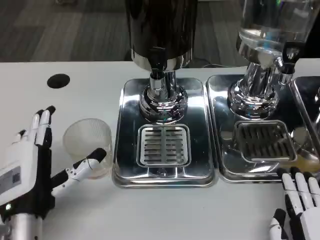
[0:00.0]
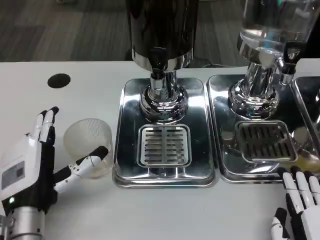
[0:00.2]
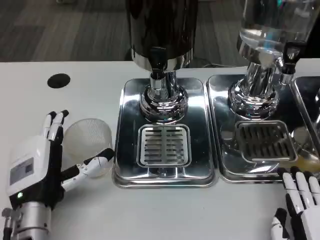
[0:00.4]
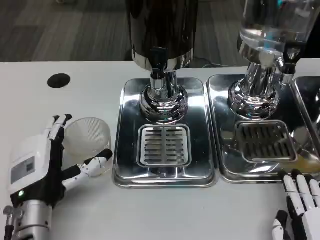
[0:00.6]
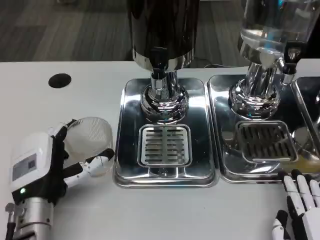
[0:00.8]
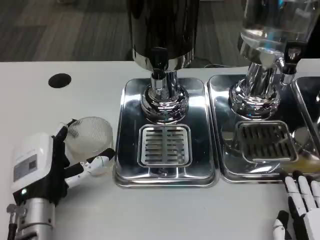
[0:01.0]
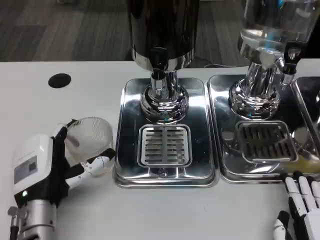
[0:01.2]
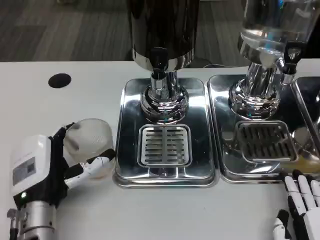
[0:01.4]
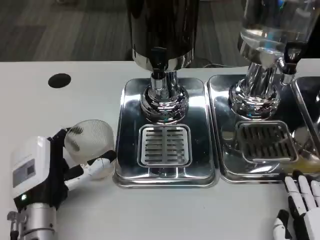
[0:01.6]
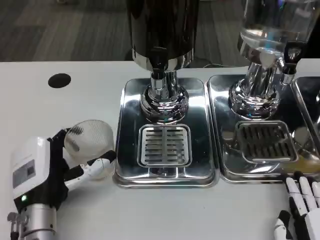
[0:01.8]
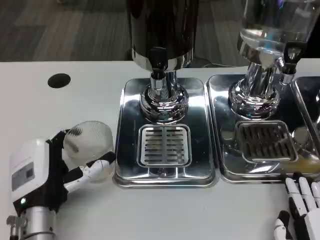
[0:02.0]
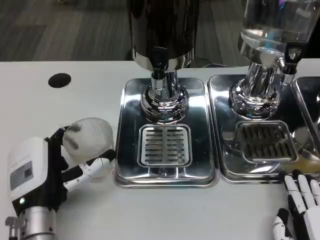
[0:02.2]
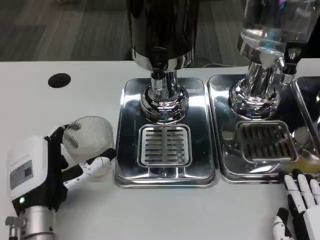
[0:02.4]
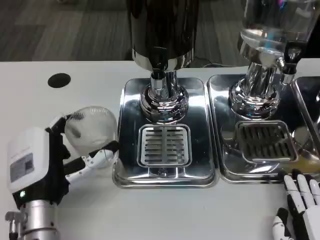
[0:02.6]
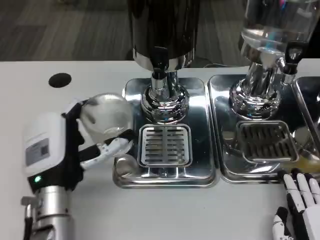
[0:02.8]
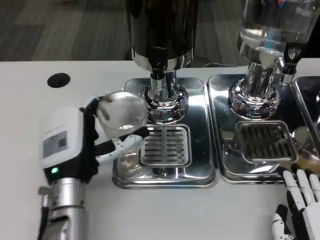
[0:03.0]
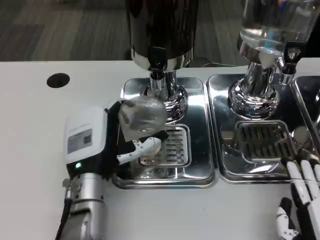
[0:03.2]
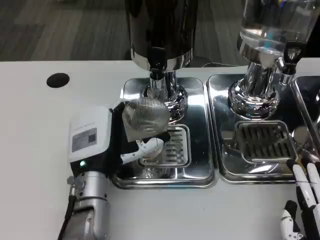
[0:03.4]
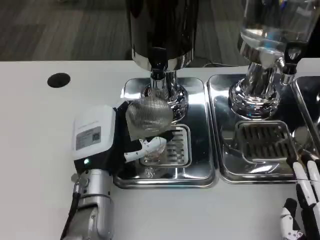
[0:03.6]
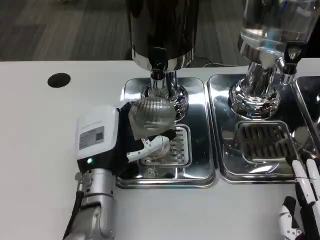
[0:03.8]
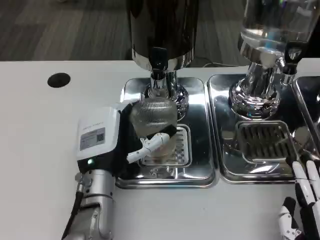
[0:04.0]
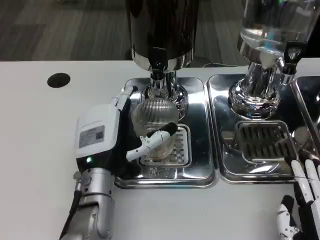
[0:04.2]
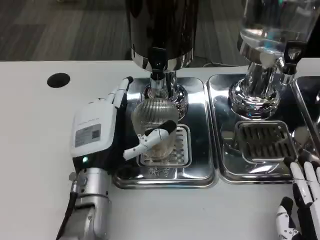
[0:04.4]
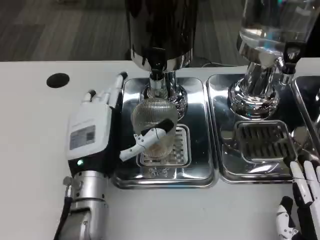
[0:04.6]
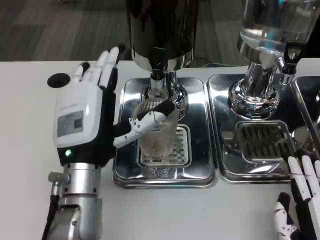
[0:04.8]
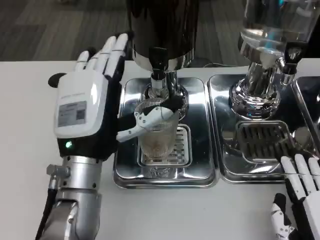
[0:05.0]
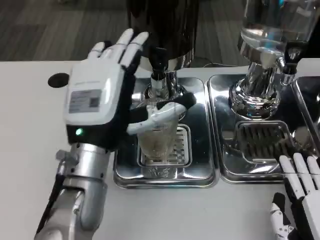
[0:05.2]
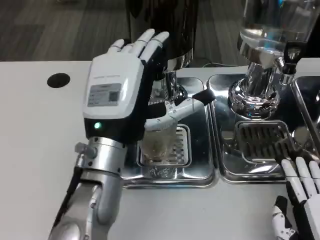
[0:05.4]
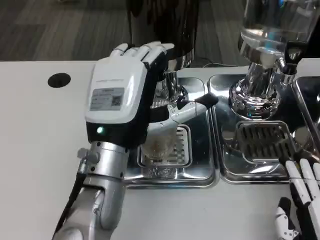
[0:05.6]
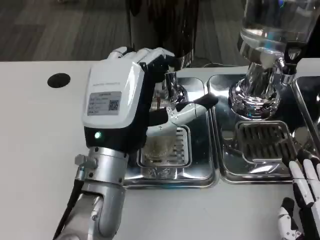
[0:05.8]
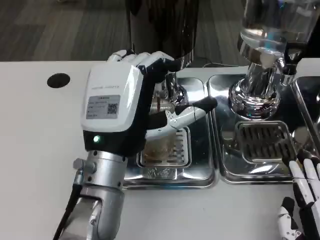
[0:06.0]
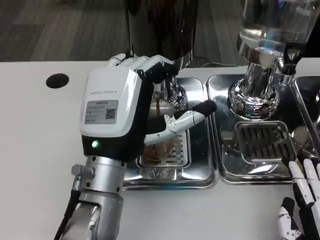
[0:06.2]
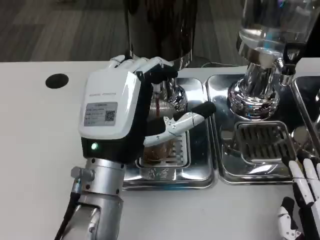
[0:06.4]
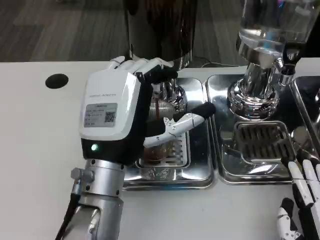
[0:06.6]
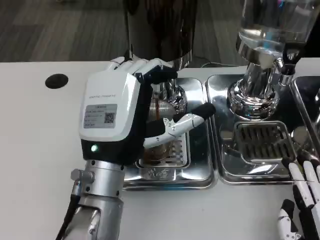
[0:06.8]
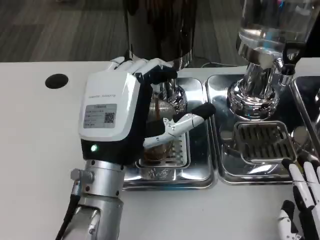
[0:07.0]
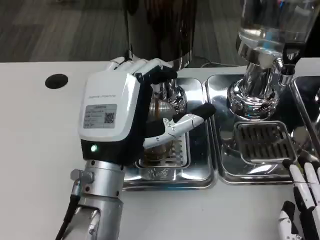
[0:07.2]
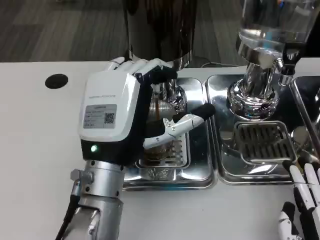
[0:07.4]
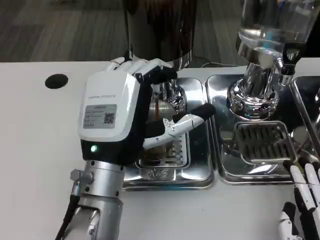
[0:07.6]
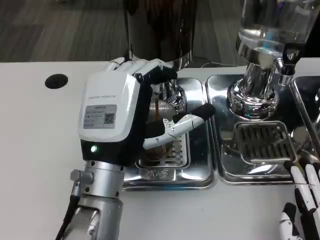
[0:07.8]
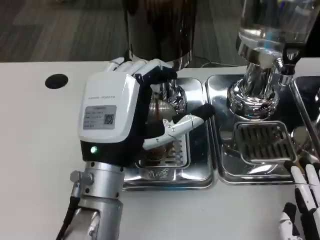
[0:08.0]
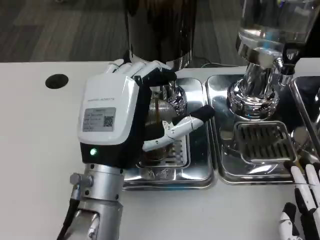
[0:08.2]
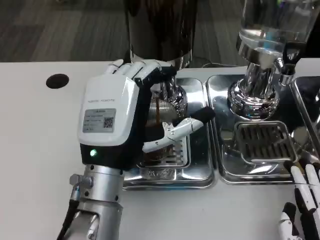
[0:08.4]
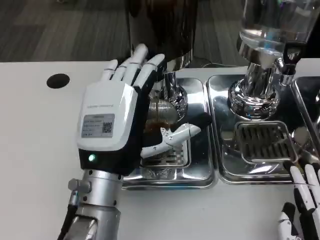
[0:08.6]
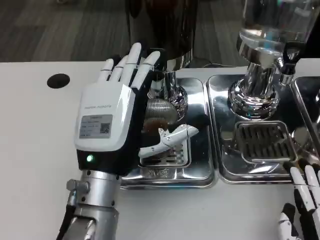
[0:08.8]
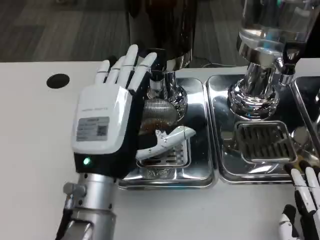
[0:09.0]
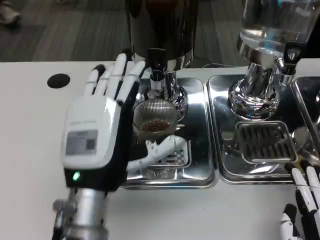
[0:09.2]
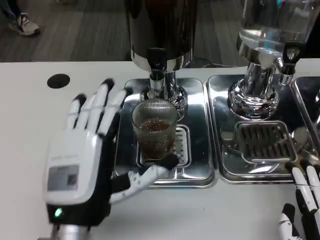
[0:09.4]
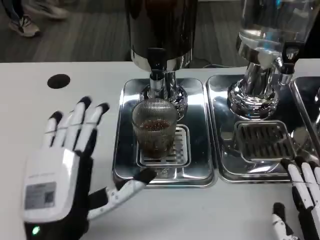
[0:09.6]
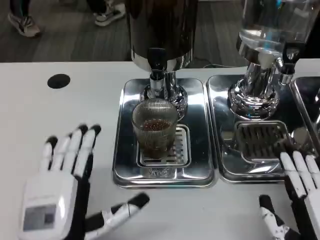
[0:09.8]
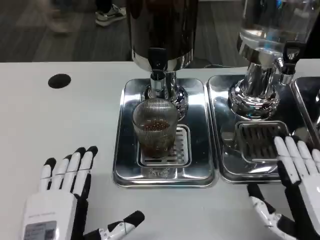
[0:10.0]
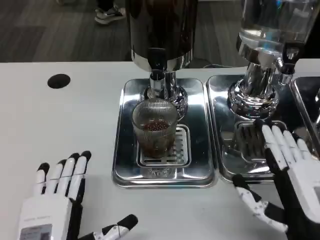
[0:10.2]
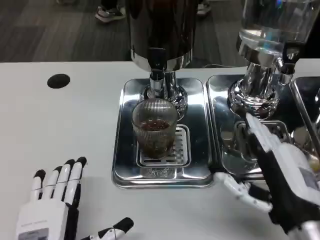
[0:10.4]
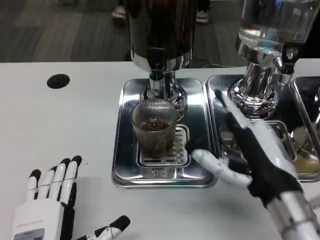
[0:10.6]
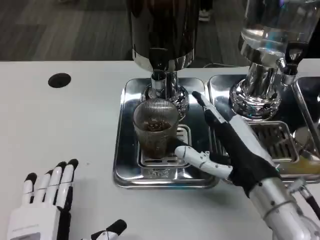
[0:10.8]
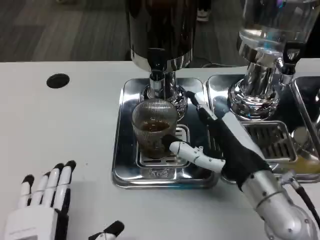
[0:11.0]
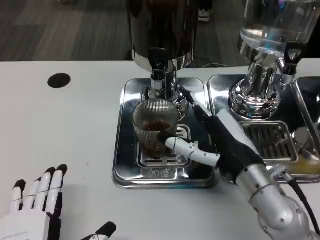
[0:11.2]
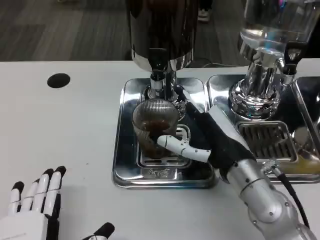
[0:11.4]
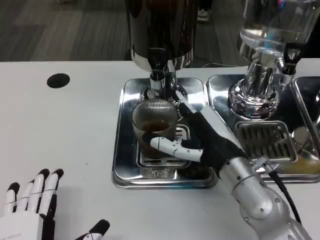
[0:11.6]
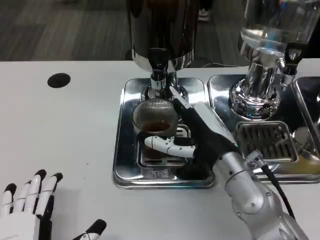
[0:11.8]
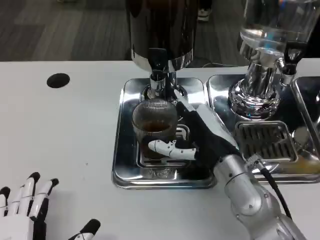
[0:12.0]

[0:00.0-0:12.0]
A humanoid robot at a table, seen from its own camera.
Task of the whole recording: Grasp the cup under the faucet to collect the drink, then remove the cup.
0:00.0 to 0:01.6: There are only small adjustments of the hands.
0:01.6 to 0:03.0: The left hand shifts by roughly 5 cm.
0:04.4 to 0:06.0: The left hand travels upward by approximately 5 cm.
0:06.0 to 0:07.6: Both hands stay about where they are.
0:07.6 to 0:09.0: The hands stay close to where they were, moving slightly.
0:09.0 to 0:10.4: The right hand goes some 10 cm forward and upward, while the left hand goes approximately 15 cm backward, downward and to the left.
0:10.4 to 0:12.0: The right hand is displaced forward and to the left by some 15 cm.

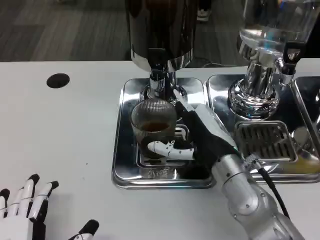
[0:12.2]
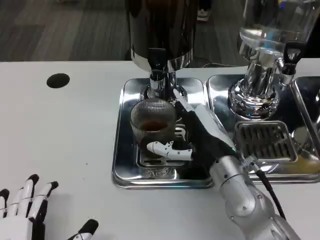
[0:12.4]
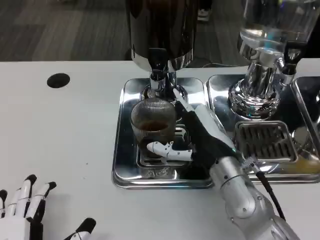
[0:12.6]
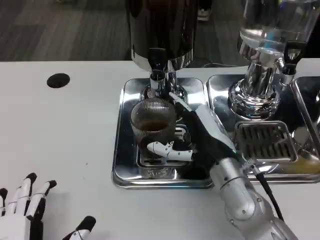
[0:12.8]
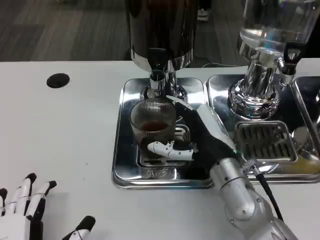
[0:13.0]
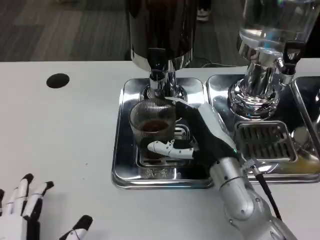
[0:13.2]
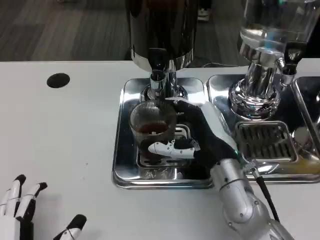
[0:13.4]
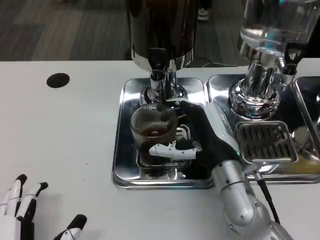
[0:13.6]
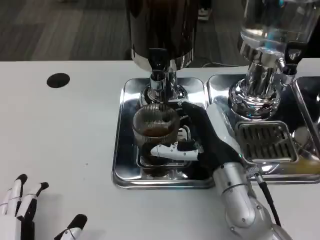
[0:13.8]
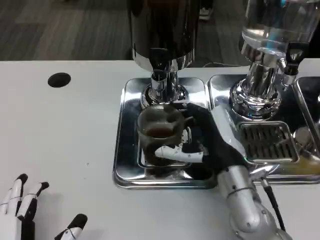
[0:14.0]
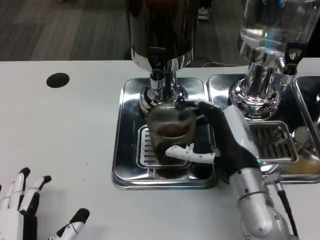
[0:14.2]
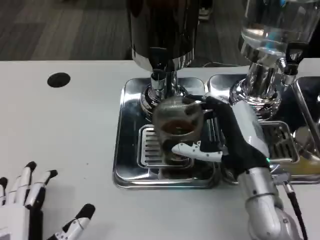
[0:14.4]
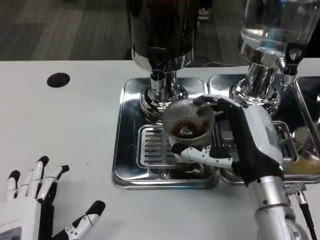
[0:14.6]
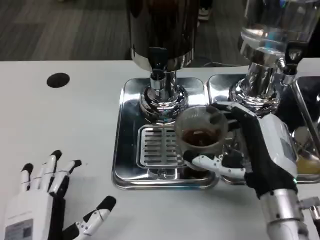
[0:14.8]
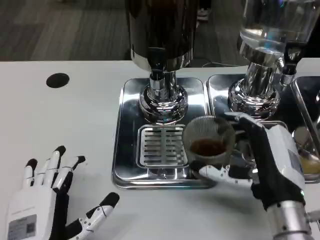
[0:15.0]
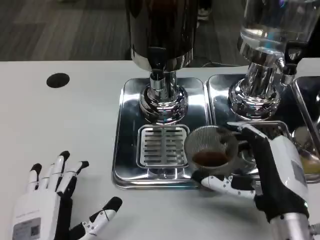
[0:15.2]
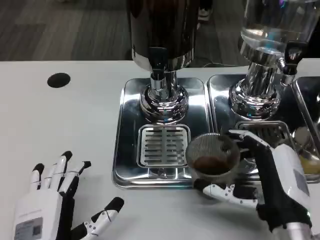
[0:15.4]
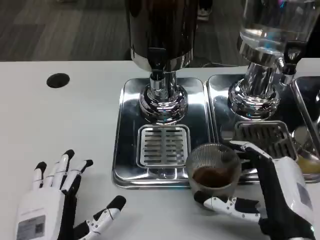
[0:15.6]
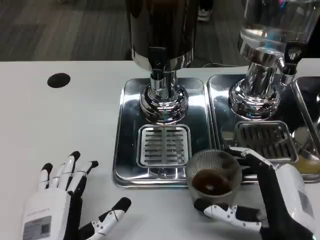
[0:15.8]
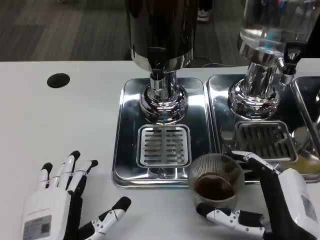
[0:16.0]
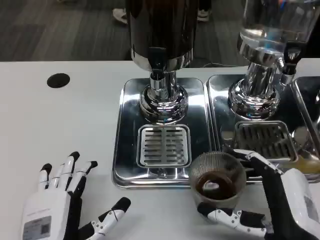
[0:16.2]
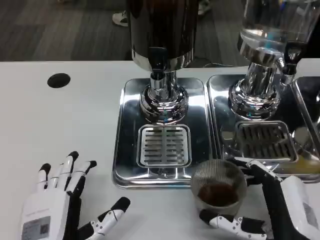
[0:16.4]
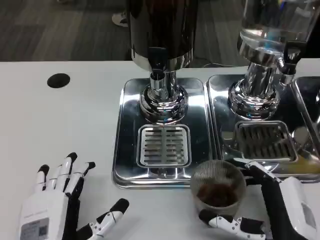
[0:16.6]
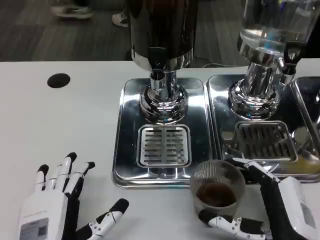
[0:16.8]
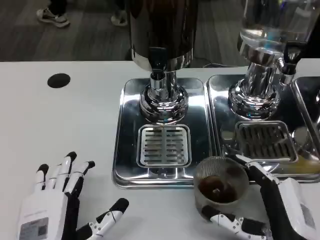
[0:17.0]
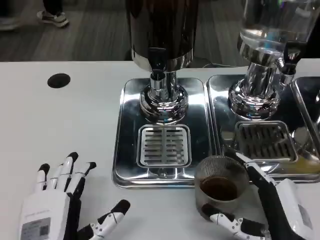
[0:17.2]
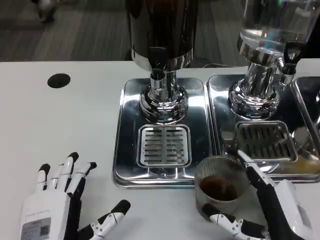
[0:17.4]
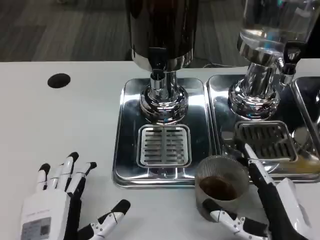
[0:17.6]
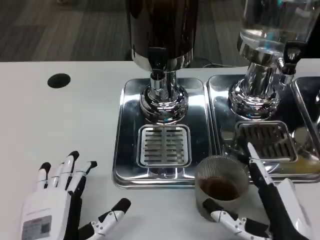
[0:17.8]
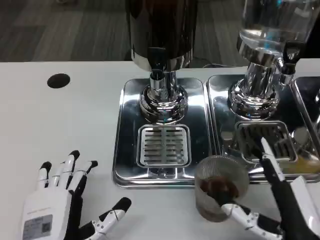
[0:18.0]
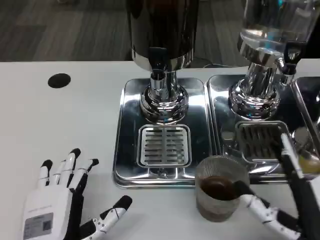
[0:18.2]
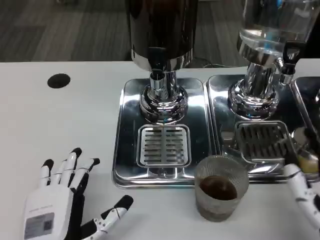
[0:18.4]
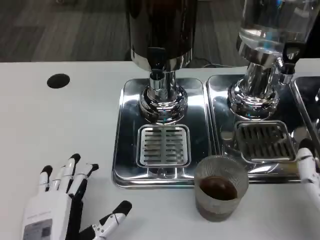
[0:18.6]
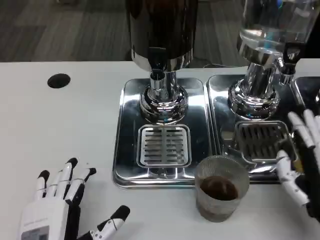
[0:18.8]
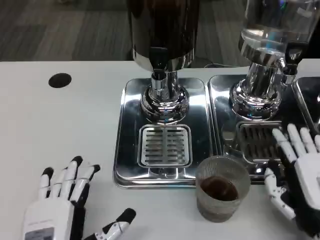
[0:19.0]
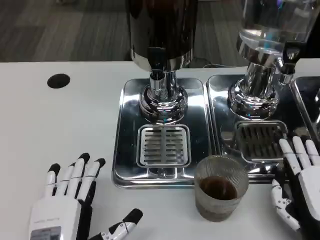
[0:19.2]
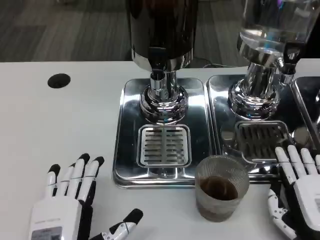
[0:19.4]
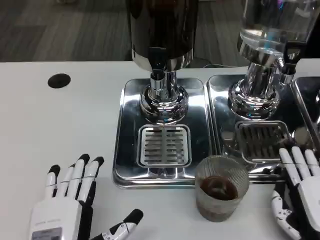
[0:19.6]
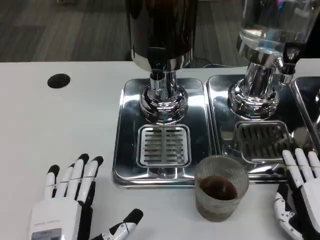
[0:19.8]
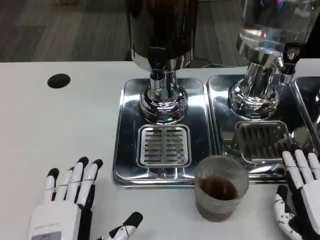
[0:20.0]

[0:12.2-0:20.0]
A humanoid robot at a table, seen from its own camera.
Task of the whole recording: Grasp the cup under the faucet to collect the drink, then remove the cup.
0:12.2 to 0:13.8: The hands move only a little.
0:13.8 to 0:15.4: The right hand moves backward and to the right, about 10 cm.
0:15.4 to 0:16.8: The hands stay close to where they were, moving slightly.
0:16.8 to 0:18.4: The hands move only a little.
0:18.4 to 0:20.0: The right hand moves roughly 5 cm.

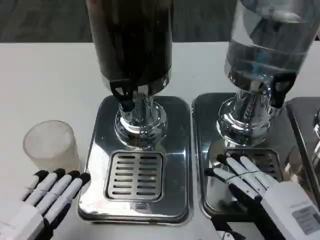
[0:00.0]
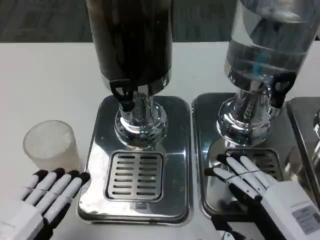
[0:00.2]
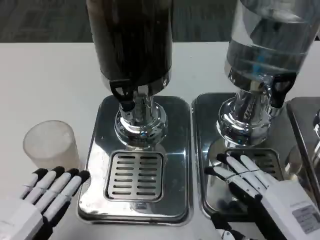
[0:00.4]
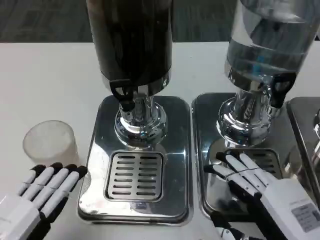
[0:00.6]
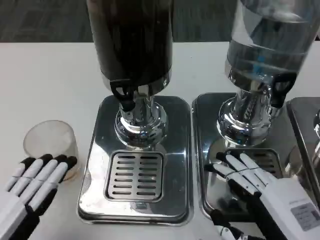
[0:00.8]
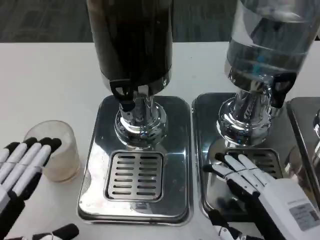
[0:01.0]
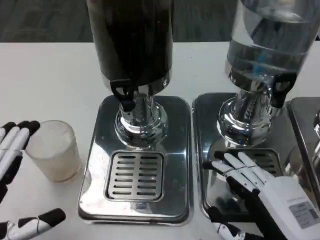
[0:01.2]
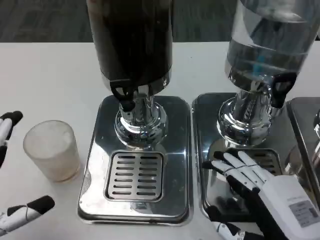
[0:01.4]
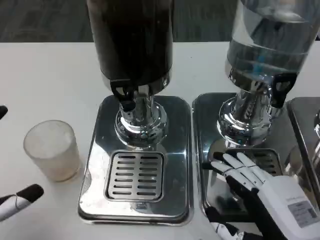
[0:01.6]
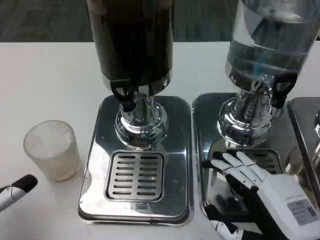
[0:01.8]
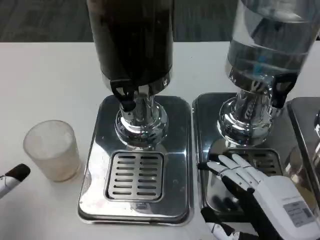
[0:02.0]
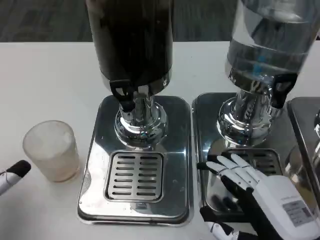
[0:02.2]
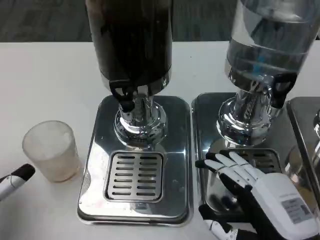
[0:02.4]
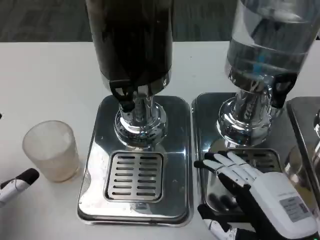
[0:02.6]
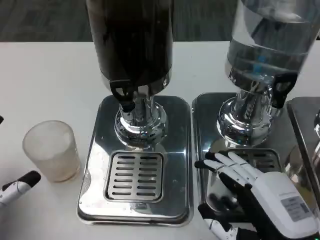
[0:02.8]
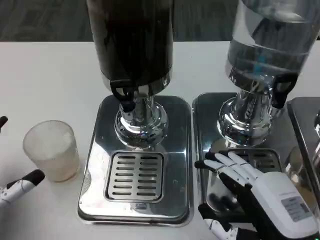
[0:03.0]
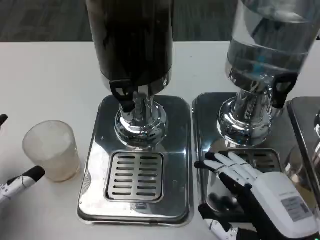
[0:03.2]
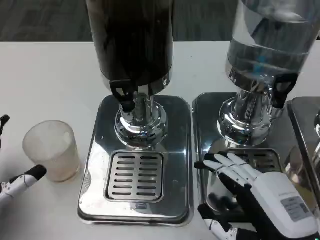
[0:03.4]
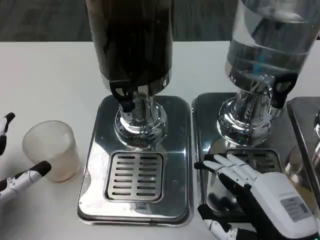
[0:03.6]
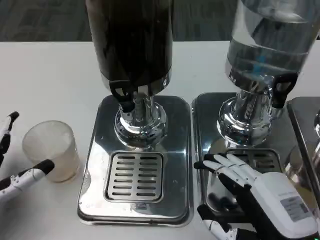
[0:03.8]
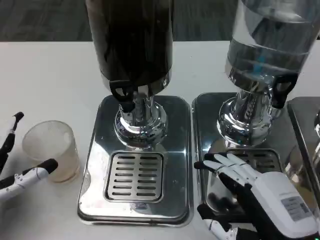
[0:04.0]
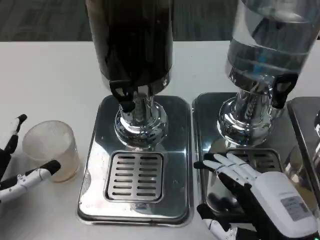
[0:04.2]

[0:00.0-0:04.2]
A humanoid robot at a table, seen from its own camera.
Task of the whole recording: Grasp the cup under the faucet to collect the drink, then remove the cup.
0:01.4 to 0:02.8: The left hand moves approximately 5 cm.
0:02.8 to 0:04.2: The hands make only small movements.
